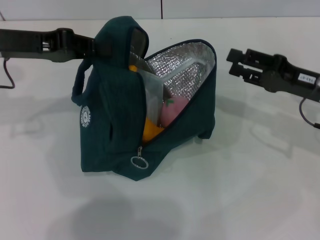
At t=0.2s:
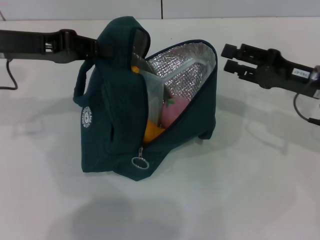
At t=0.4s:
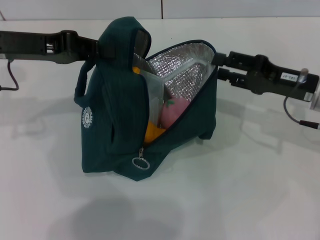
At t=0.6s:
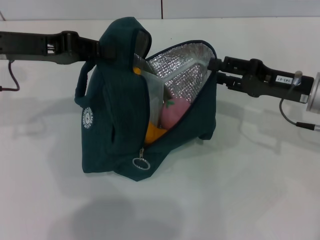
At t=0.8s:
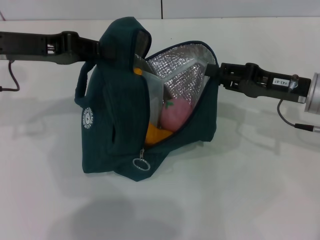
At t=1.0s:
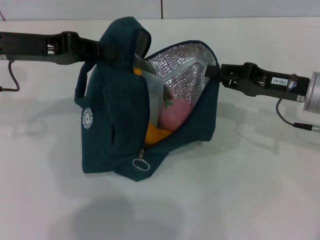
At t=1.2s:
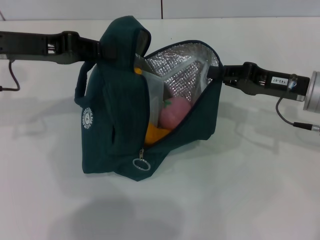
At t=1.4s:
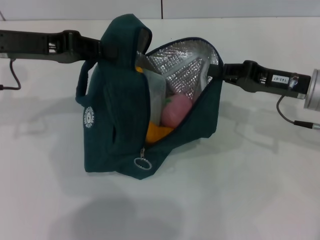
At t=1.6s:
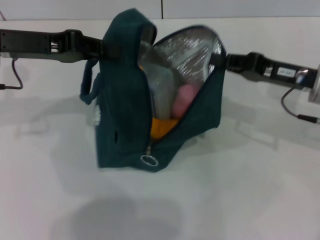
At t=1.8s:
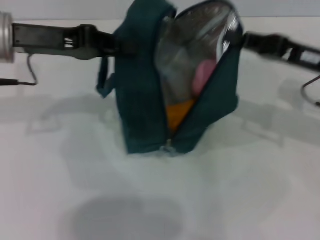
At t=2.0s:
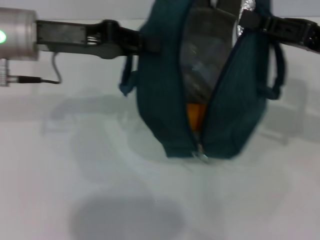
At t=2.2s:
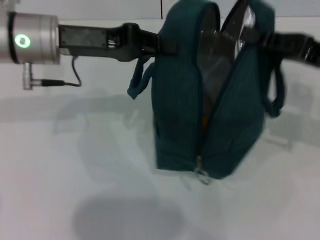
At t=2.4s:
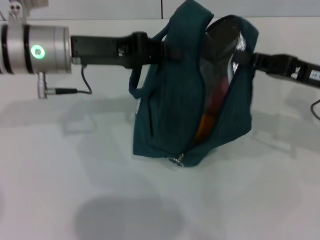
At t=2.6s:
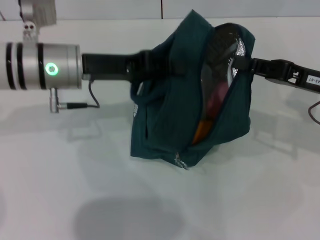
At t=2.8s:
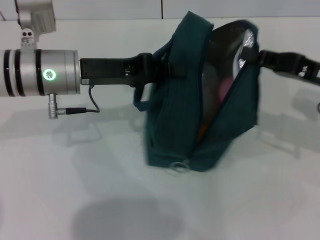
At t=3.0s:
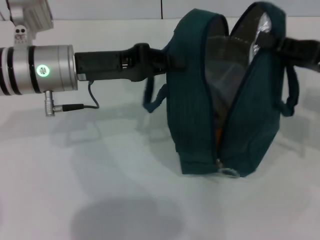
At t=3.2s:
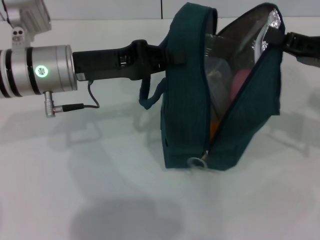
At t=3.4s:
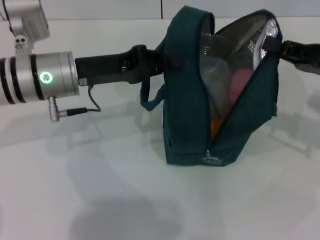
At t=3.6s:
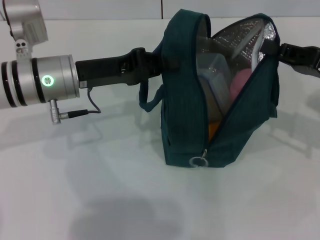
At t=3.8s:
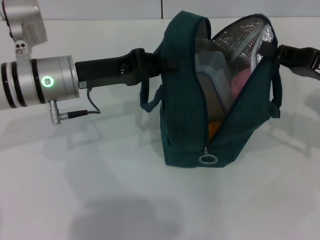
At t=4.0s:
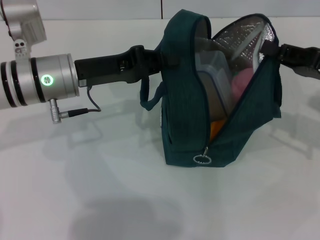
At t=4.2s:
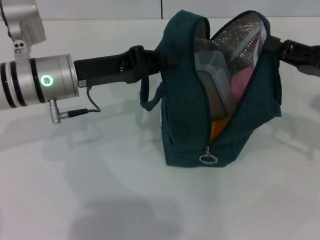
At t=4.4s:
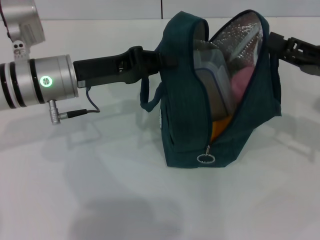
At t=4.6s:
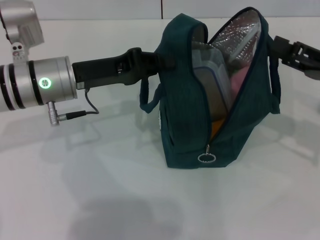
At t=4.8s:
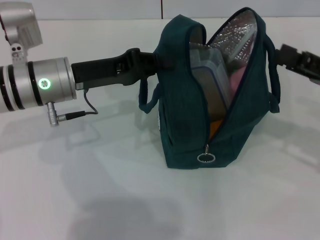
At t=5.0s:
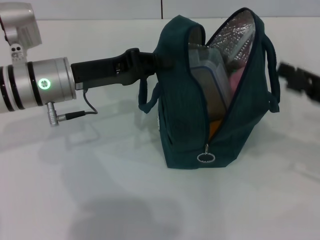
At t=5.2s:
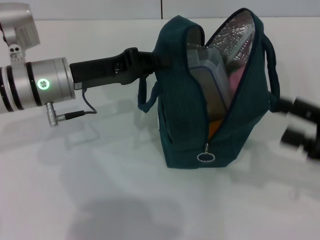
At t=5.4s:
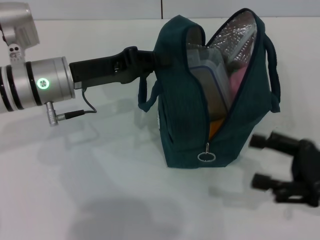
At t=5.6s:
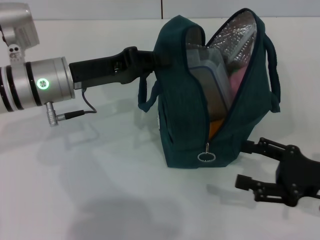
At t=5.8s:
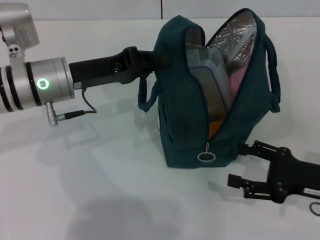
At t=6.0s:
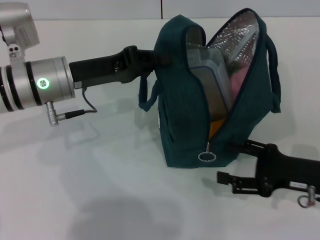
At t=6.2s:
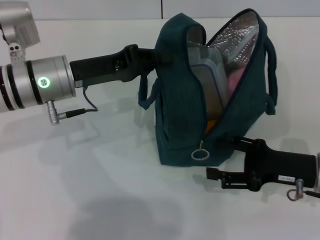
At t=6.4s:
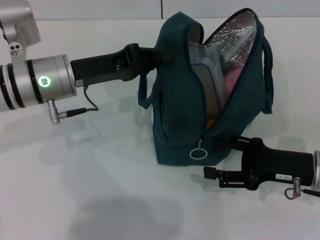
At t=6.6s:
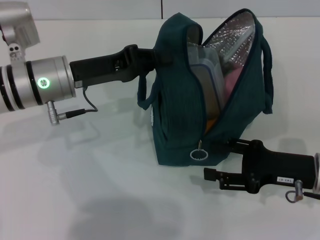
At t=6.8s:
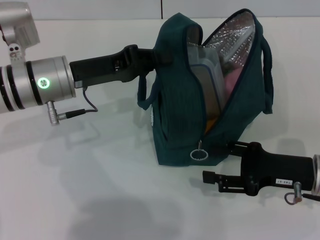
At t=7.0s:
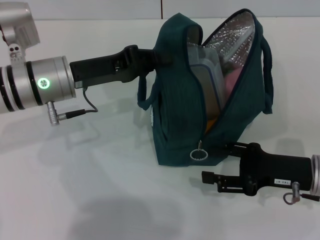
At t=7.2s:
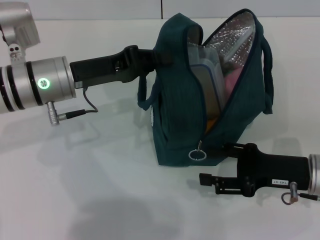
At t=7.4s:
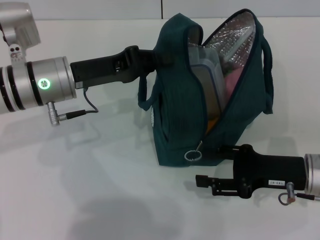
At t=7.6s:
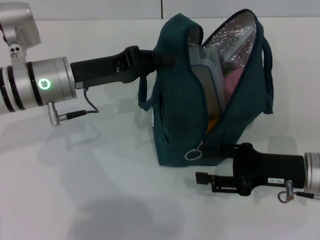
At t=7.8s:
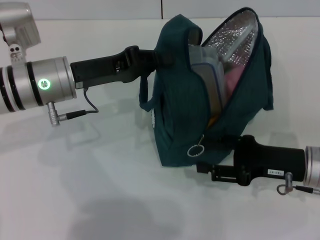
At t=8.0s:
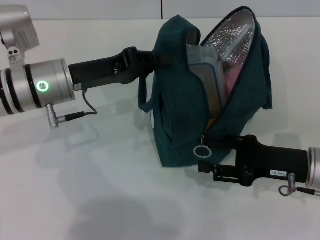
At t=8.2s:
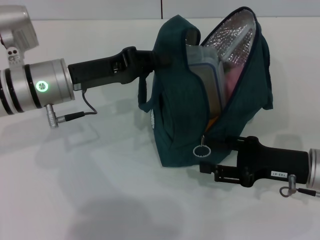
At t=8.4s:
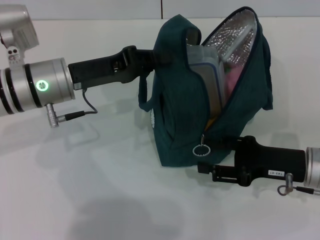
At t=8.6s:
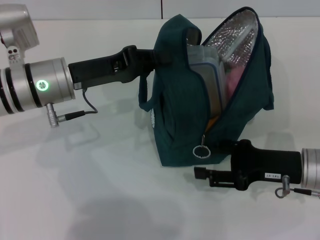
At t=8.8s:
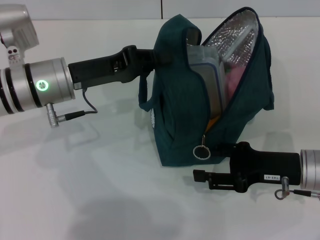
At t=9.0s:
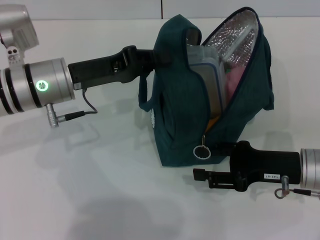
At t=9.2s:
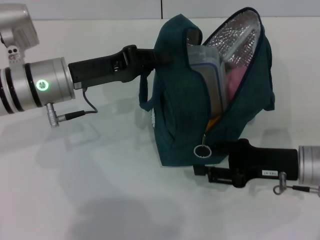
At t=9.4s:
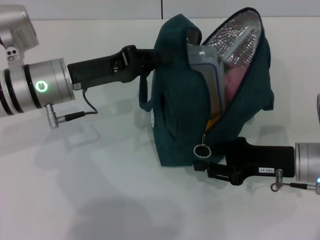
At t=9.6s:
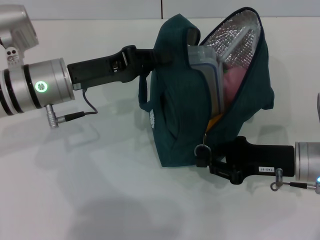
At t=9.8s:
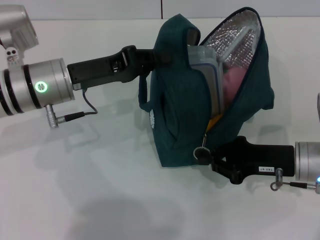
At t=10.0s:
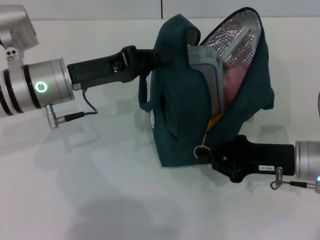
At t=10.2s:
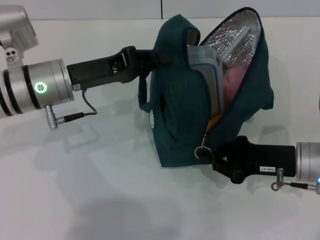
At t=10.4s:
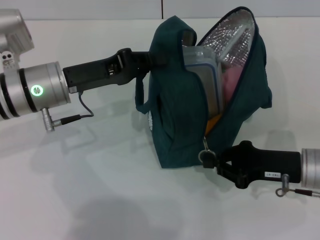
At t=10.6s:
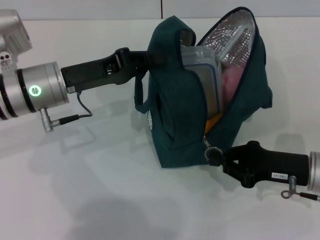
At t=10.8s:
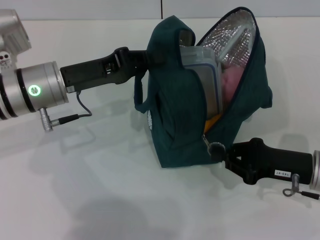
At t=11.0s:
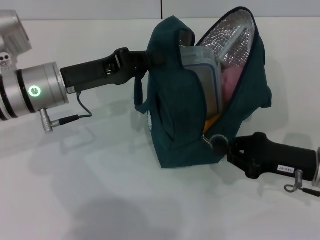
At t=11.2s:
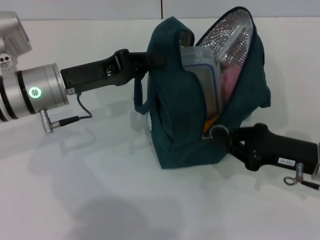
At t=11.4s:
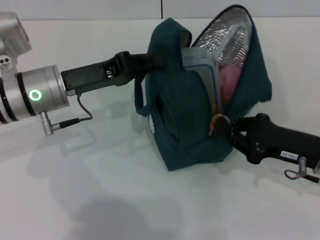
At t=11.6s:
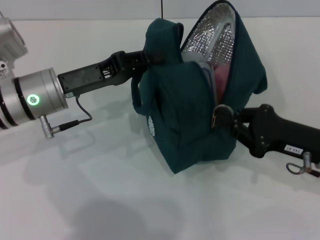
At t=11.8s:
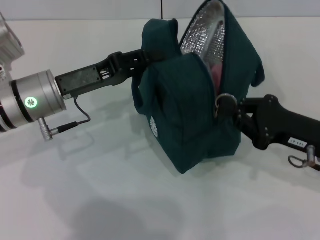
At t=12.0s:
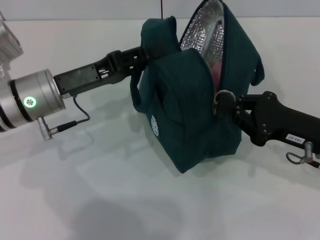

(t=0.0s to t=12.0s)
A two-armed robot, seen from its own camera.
Step, t=0.0s - t=4.6s: Hold the lunch bag with your right hand.
t=0.0s - t=1.6s: The right gripper closes its fingers.
t=1.6s - t=3.0s: The right gripper ends up about 5 cm from where it was. Meanwhile the left gripper goes about 10 cm to the right and downward.
t=4.4s - t=6.0s: The right gripper goes some 10 cm downward and backward, and opens.
t=6.0s - t=7.6s: The grippers stay close to where they were, moving slightly.
t=7.6s - t=9.0s: Both grippers stay put.
t=9.0s - t=10.4s: The right gripper closes its fingers.
t=10.4s - t=12.0s: The left gripper opens up.

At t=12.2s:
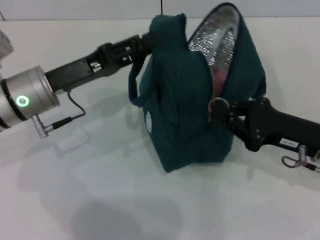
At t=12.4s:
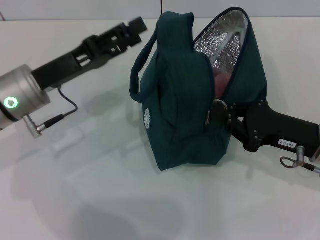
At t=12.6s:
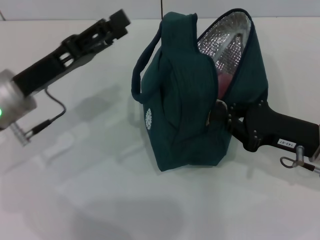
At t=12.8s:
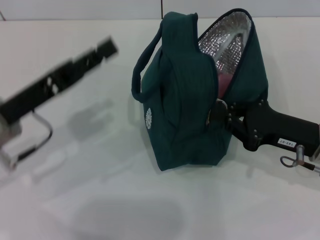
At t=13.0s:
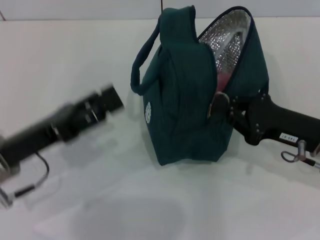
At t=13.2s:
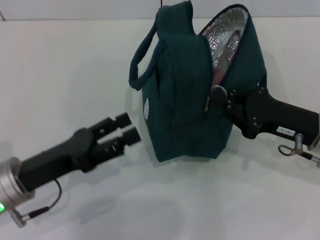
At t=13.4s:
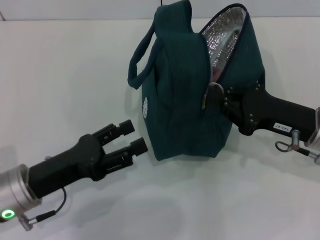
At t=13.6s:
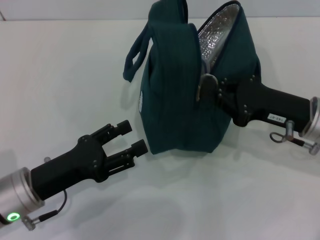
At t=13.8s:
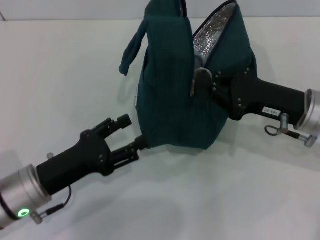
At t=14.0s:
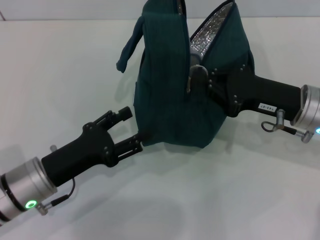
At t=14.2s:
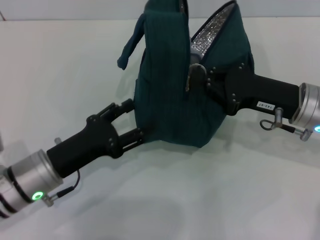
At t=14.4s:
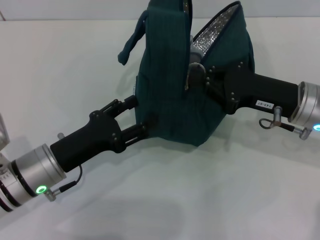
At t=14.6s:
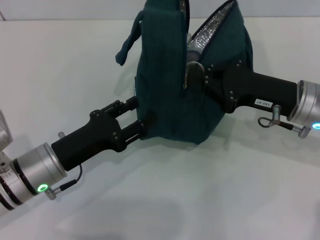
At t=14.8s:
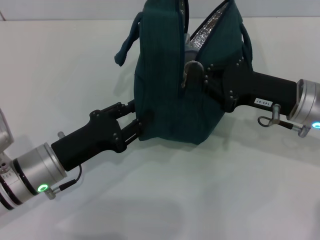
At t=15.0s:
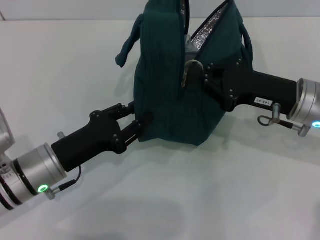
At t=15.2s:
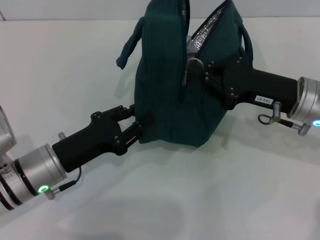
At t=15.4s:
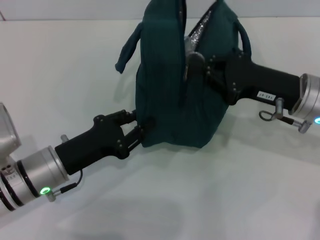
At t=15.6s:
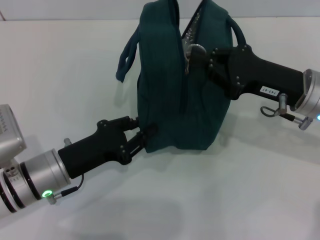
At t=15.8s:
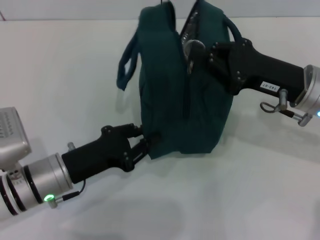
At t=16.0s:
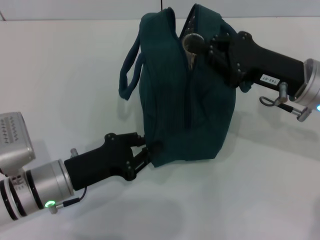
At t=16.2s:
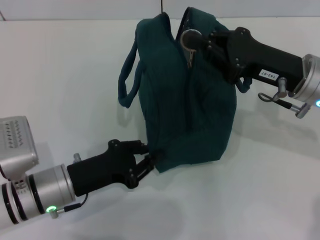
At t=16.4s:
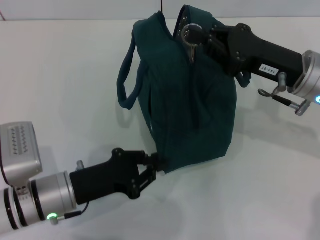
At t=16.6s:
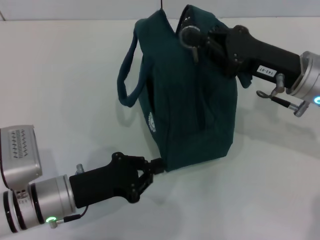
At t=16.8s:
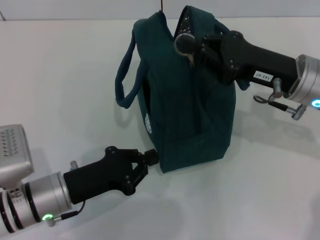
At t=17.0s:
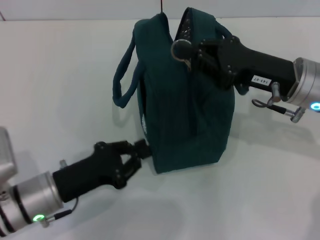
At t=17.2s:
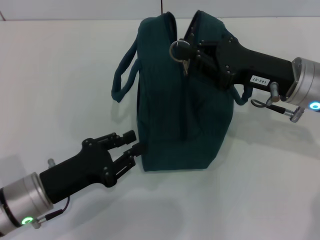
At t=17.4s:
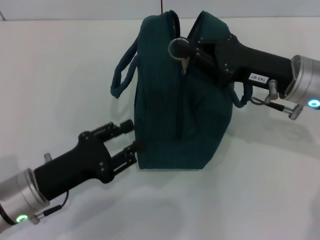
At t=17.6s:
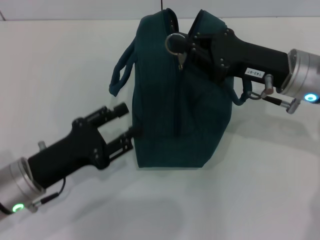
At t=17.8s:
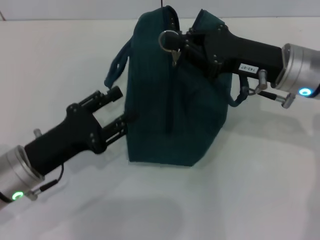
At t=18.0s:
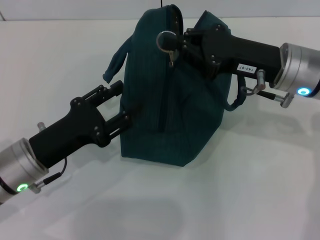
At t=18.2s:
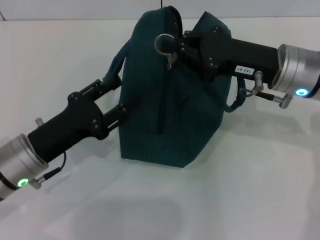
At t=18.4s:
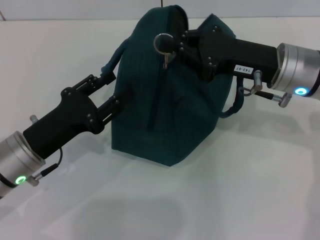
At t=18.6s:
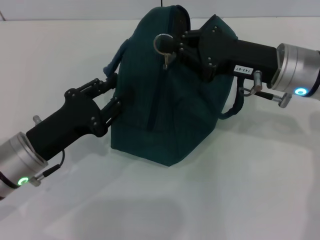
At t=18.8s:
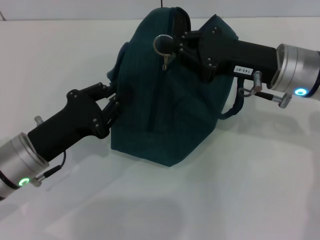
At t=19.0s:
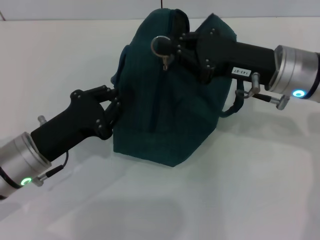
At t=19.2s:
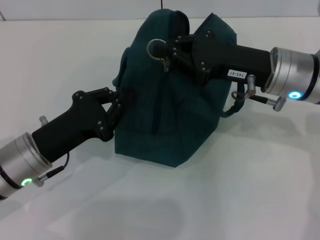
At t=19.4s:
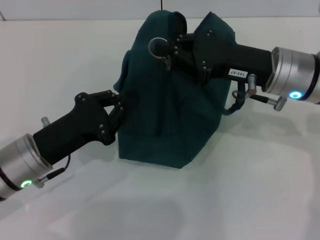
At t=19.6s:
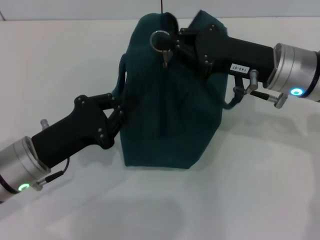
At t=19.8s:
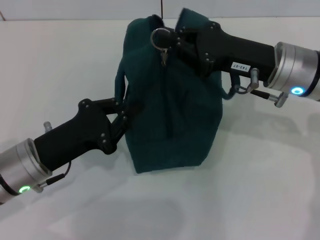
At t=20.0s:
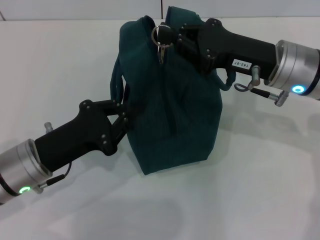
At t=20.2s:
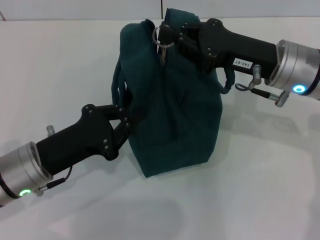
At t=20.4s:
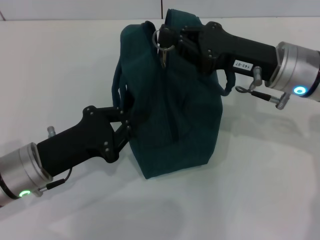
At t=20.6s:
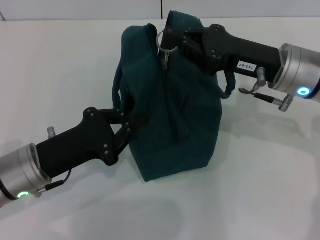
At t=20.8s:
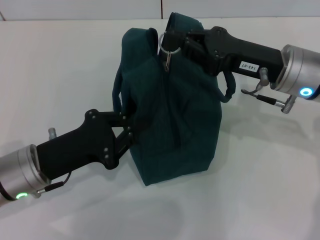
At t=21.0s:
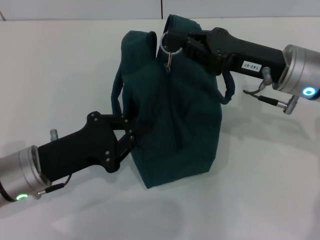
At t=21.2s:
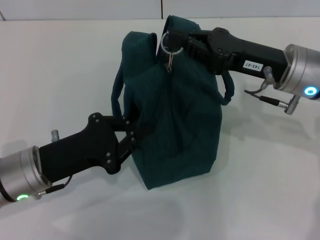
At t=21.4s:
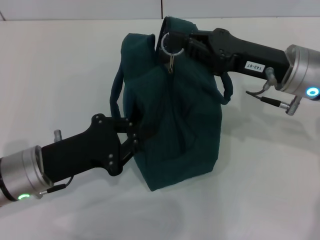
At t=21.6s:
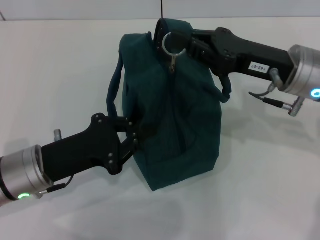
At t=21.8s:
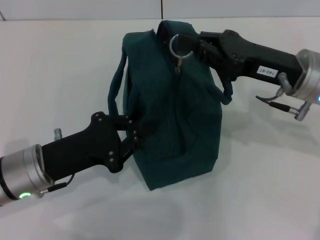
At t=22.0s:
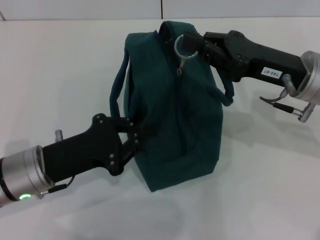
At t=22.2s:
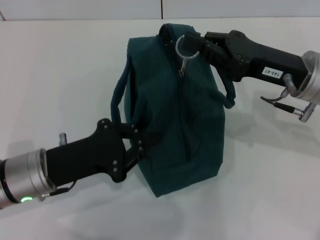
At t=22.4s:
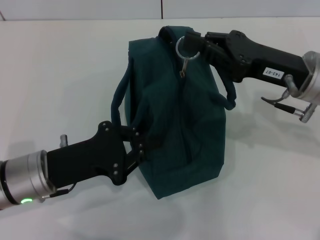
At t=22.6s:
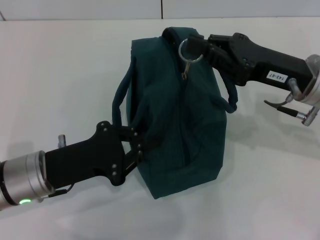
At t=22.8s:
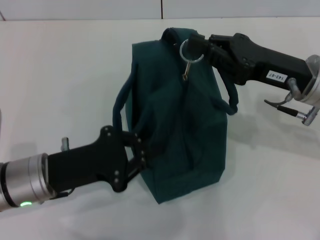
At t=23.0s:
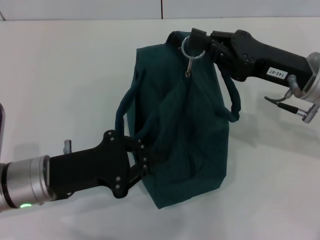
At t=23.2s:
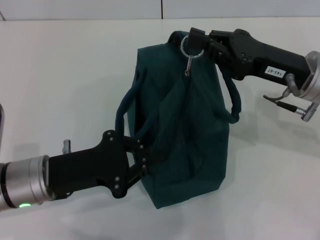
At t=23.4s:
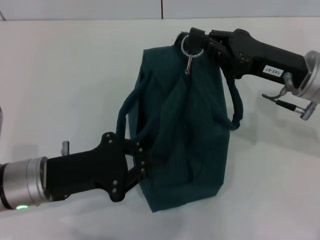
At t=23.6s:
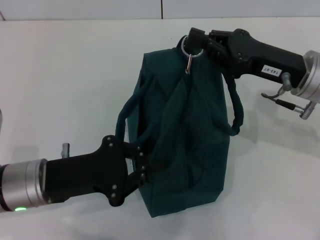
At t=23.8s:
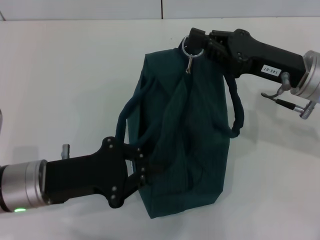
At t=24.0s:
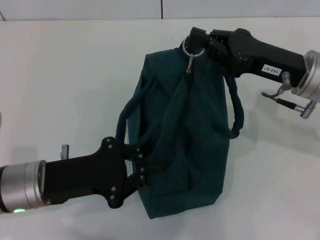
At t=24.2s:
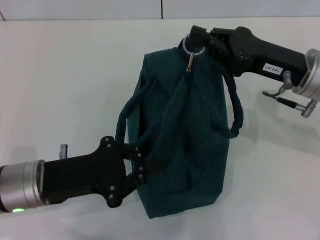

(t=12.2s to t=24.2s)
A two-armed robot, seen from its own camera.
t=12.2s - t=13.8s: The left gripper moves backward and downward, some 15 cm, and opens.
t=13.8s - t=15.2s: The left gripper closes.
t=16.6s - t=18.2s: The left gripper ends up roughly 5 cm from where it was, and opens its fingers.
t=18.2s - t=19.8s: The left gripper closes up.
t=19.8s - t=22.6s: The grippers make only small movements.
t=22.6s - t=24.2s: The grippers stay close to where they were, moving slightly.
